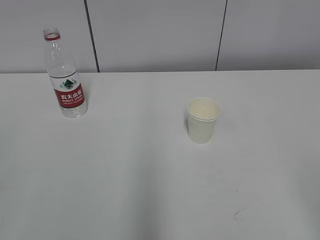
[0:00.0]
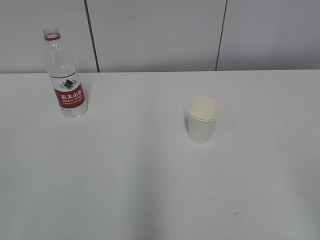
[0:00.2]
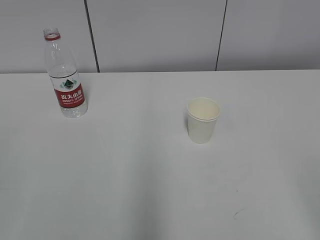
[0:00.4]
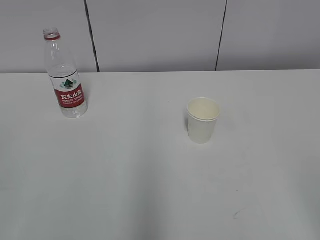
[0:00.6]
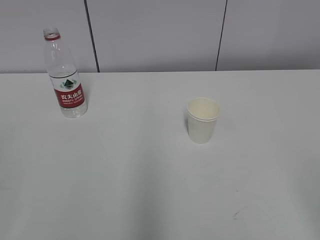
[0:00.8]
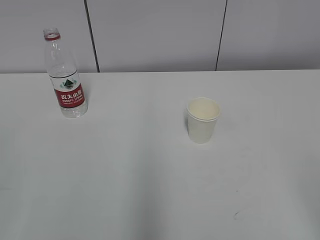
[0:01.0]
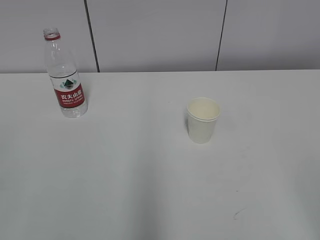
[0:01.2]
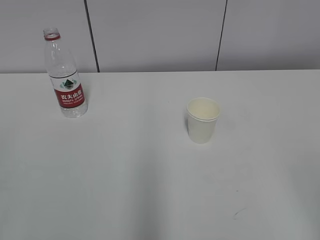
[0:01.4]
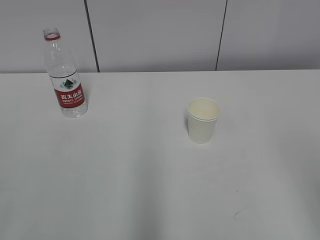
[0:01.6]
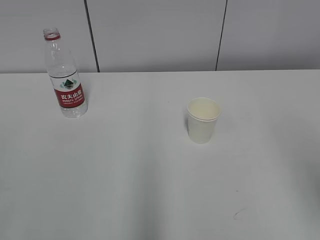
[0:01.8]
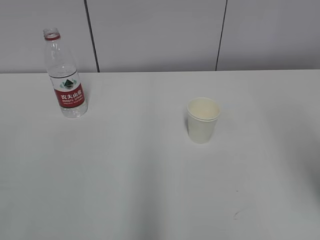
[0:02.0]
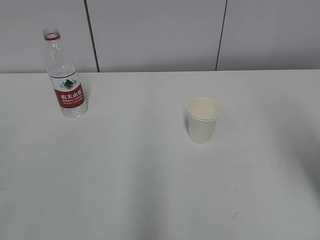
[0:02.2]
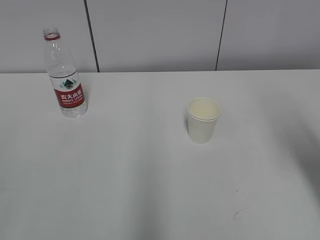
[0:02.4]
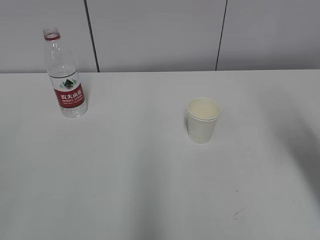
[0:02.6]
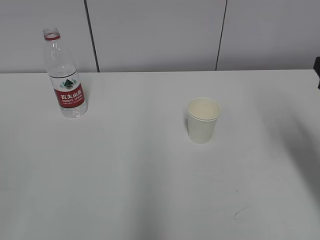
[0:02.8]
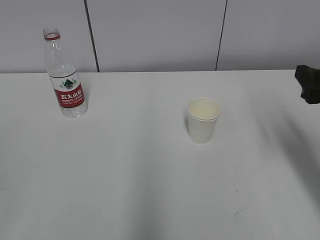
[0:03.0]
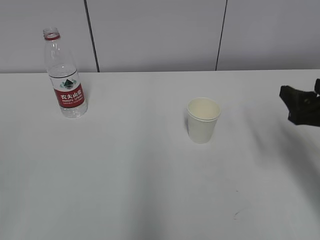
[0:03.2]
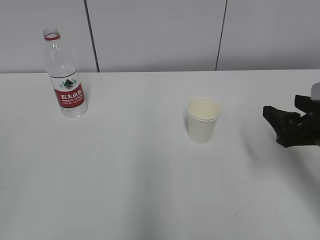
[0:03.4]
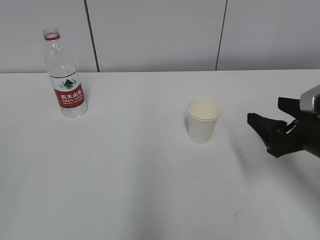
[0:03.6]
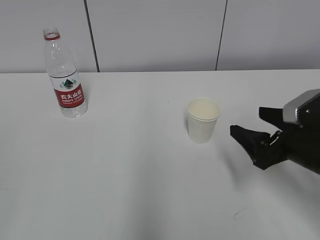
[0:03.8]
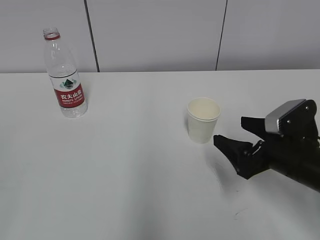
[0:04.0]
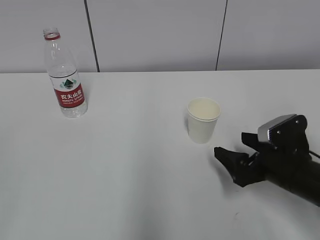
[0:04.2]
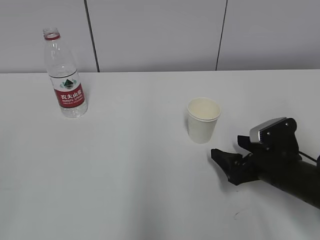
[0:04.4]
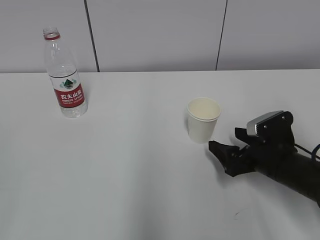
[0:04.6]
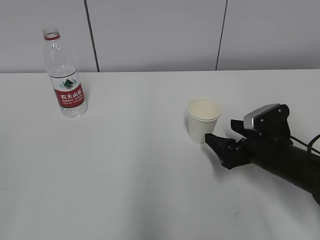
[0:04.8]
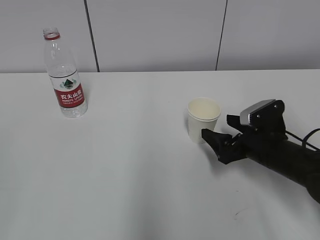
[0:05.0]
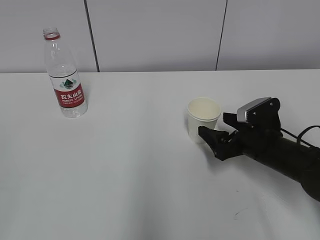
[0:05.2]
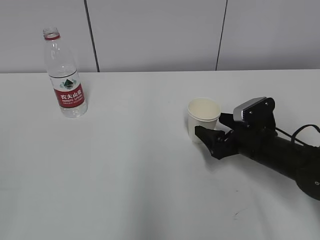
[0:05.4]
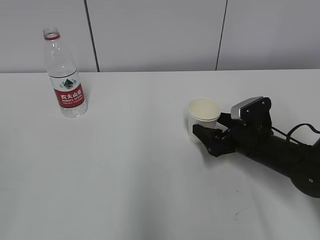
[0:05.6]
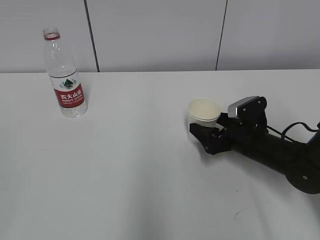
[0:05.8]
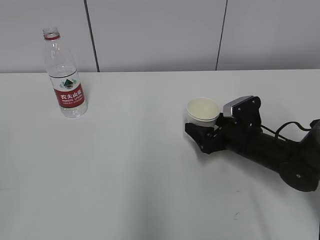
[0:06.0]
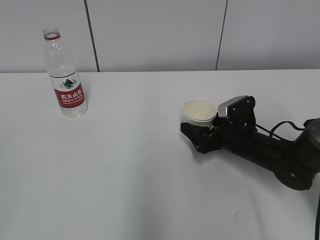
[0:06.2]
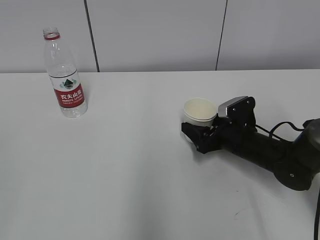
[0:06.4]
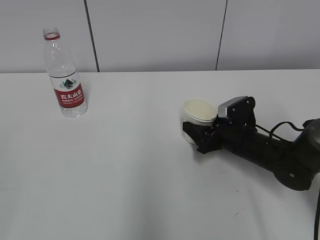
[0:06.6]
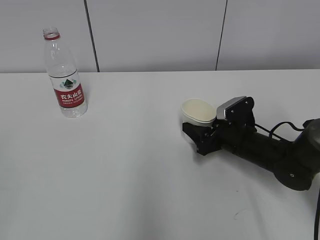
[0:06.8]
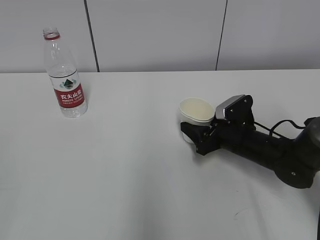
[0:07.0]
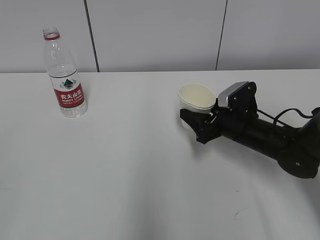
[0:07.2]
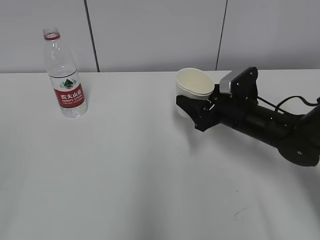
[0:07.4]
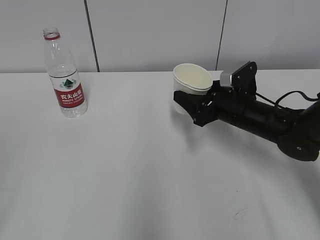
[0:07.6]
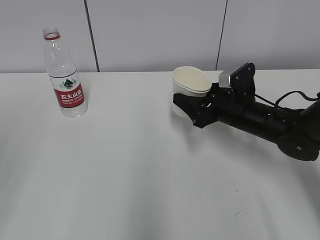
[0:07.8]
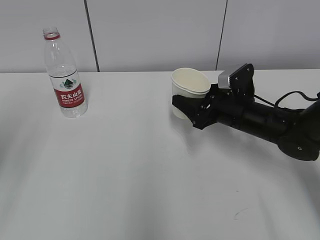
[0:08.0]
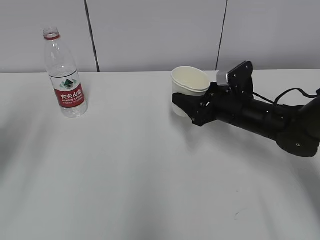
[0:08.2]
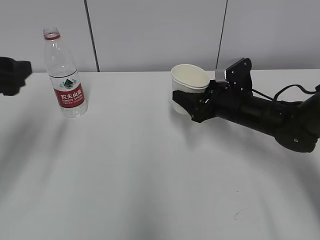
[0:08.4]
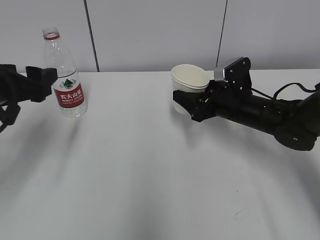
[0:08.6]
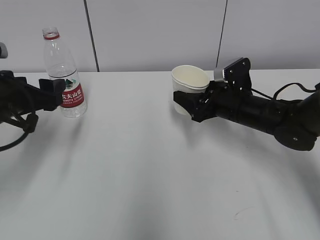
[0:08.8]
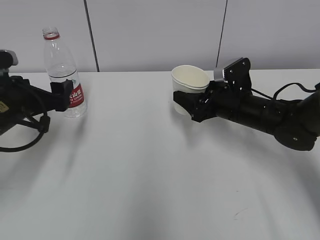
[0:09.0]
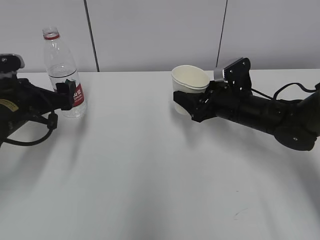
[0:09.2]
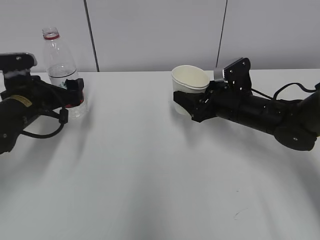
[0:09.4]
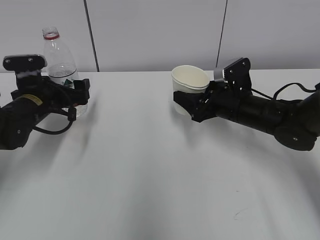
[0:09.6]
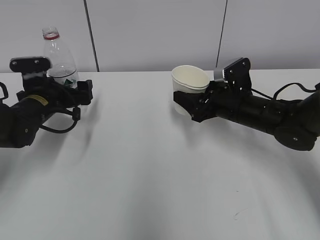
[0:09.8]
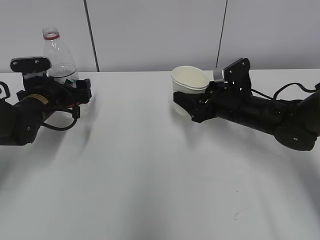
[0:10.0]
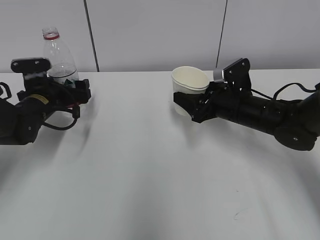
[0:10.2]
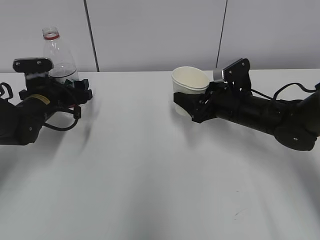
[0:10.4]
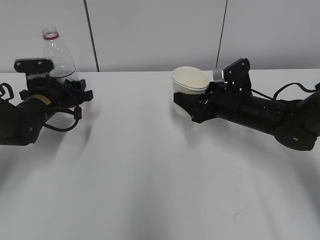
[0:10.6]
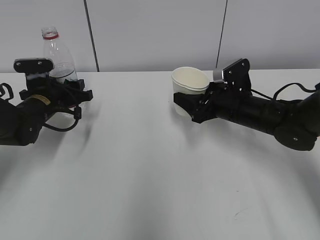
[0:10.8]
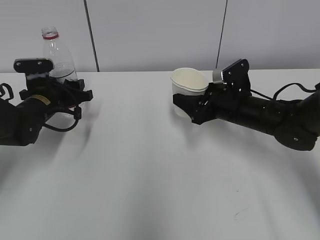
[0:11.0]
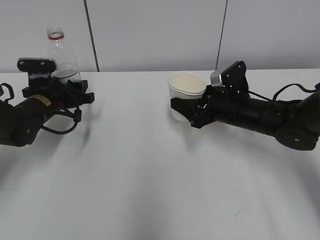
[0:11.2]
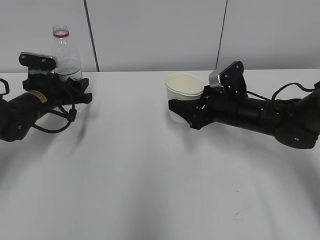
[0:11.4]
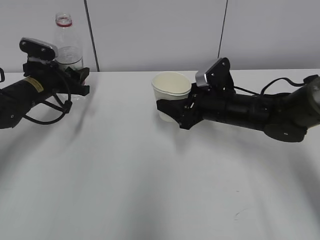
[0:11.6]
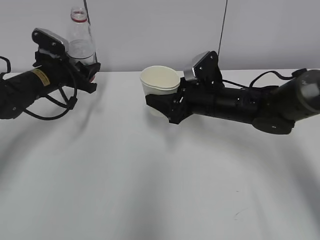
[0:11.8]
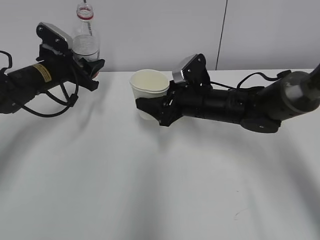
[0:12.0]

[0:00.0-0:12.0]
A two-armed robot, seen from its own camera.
Step, 0:00.0 to 0:05.6: Grab the paper cup with the right hand.
Step, 0:05.8 to 0:09.2: Grab the water bottle with the left hand.
0:01.6 to 0:03.0: The right gripper travels forward by some 25 cm.
0:03.0 to 0:04.4: The right gripper moves downward and to the left, some 15 cm, and opens its fingers.
0:04.4 to 0:06.0: The right gripper heads forward, covering some 10 cm.
0:06.0 to 0:07.6: The right gripper heads upward, covering some 5 cm, and closes its fingers, while the left gripper shifts by about 5 cm.
0:07.6 to 0:09.0: The left gripper travels forward and downward by approximately 30 cm, and opens up.
0:09.0 to 0:10.4: The left gripper heads forward and downward, covering roughly 10 cm.
0:10.4 to 0:12.0: The right gripper moves to the left, some 5 cm, while the left gripper changes place by about 5 cm, and closes.

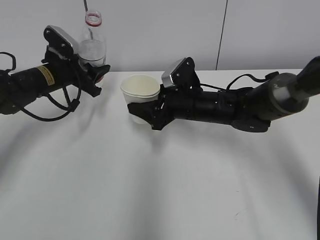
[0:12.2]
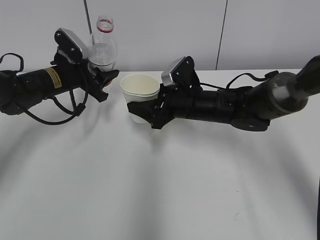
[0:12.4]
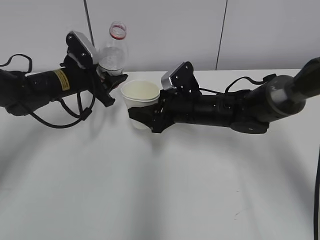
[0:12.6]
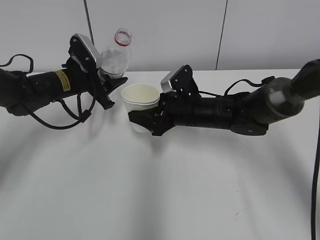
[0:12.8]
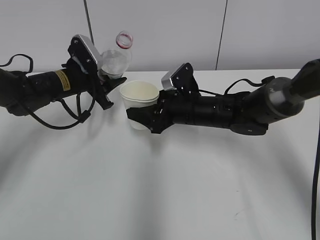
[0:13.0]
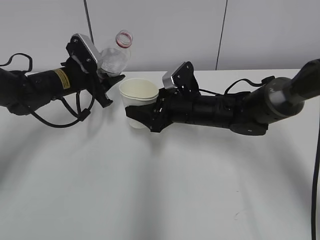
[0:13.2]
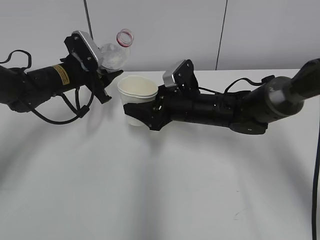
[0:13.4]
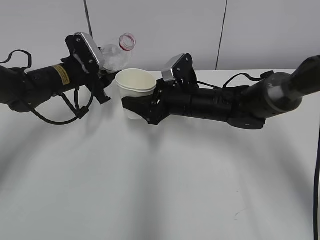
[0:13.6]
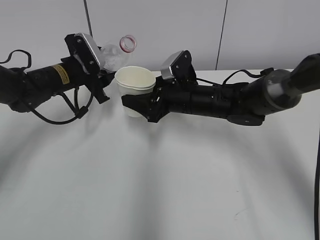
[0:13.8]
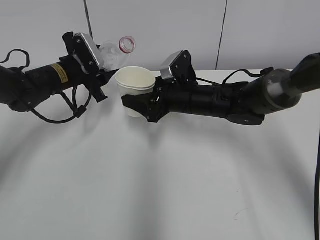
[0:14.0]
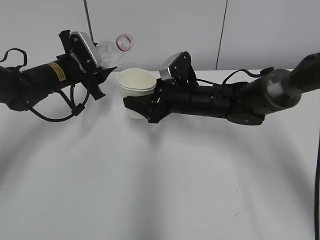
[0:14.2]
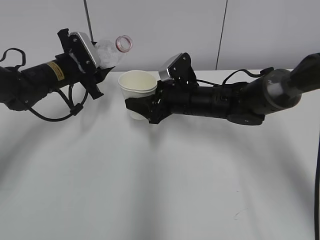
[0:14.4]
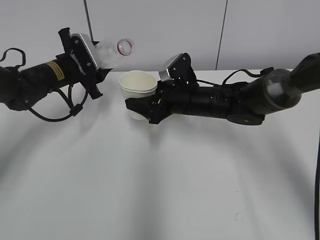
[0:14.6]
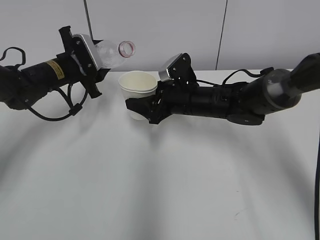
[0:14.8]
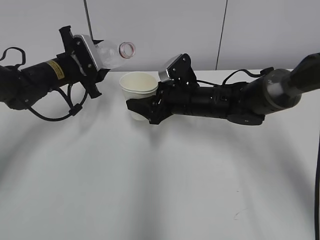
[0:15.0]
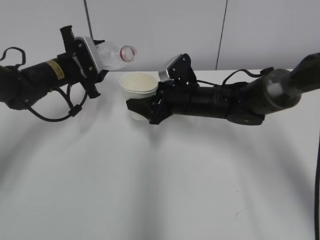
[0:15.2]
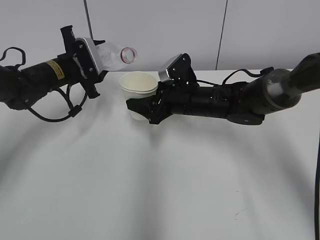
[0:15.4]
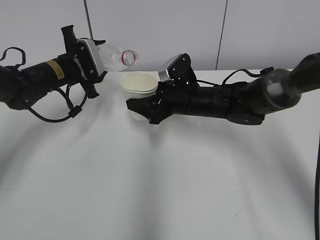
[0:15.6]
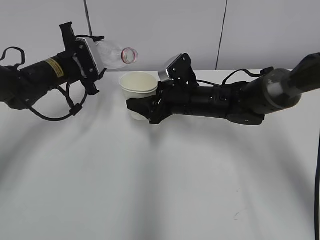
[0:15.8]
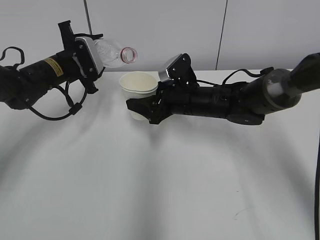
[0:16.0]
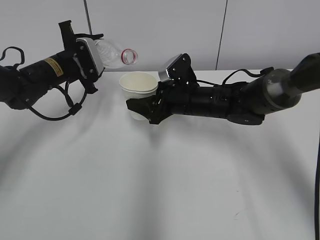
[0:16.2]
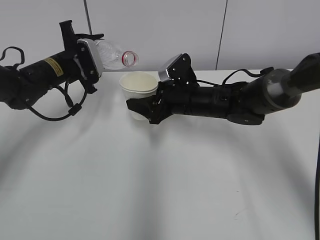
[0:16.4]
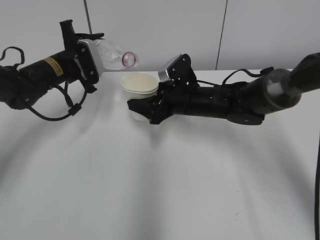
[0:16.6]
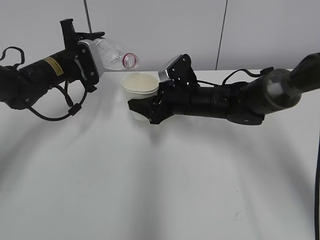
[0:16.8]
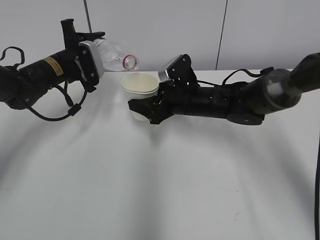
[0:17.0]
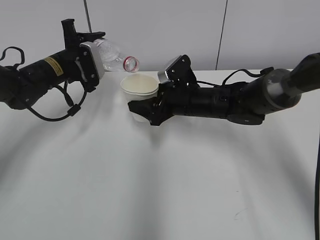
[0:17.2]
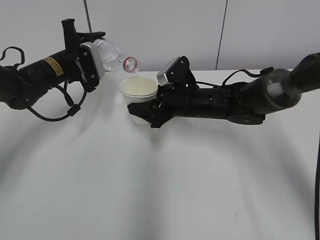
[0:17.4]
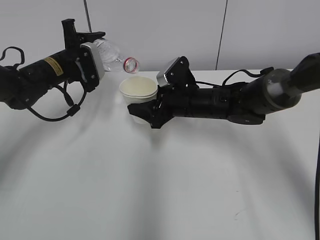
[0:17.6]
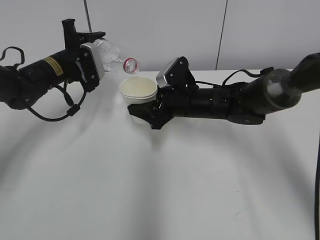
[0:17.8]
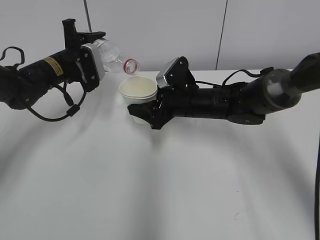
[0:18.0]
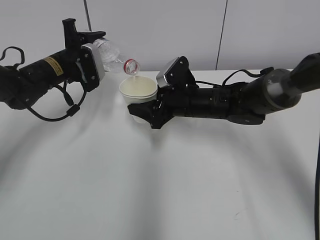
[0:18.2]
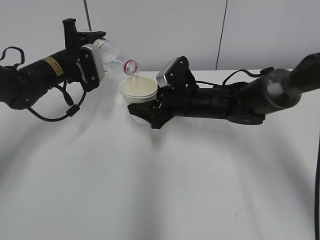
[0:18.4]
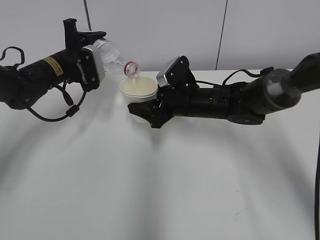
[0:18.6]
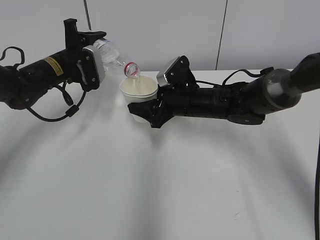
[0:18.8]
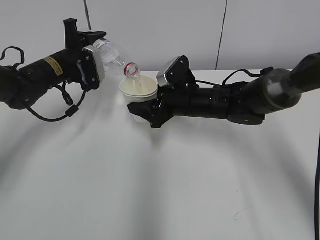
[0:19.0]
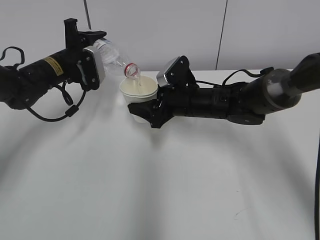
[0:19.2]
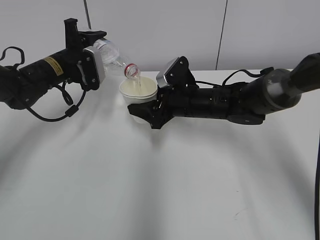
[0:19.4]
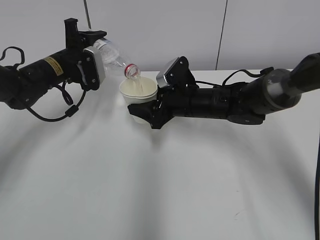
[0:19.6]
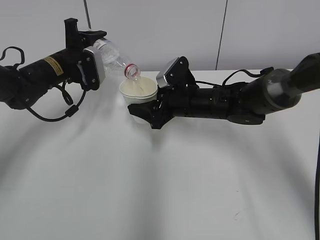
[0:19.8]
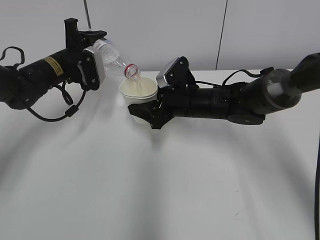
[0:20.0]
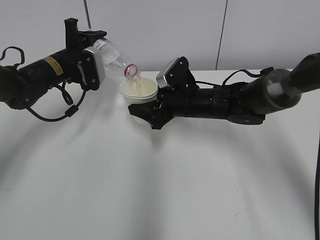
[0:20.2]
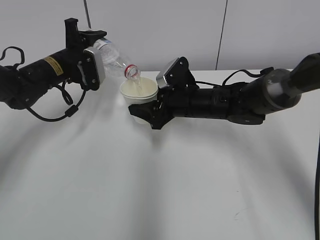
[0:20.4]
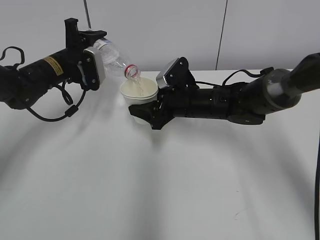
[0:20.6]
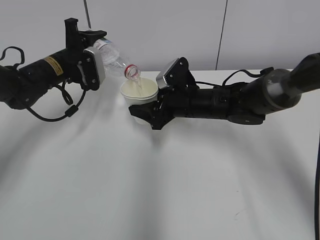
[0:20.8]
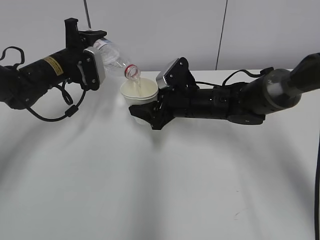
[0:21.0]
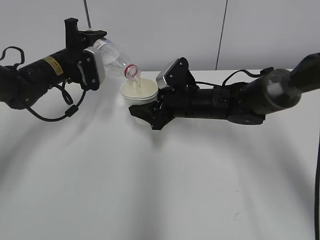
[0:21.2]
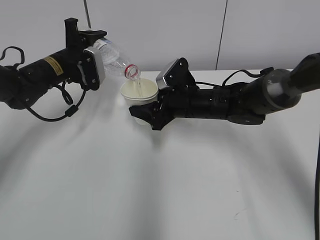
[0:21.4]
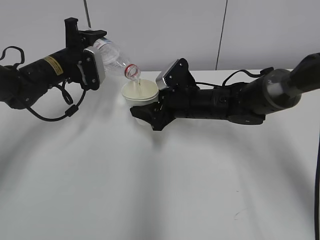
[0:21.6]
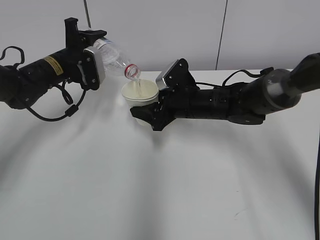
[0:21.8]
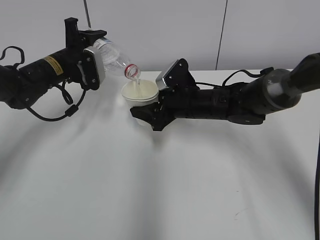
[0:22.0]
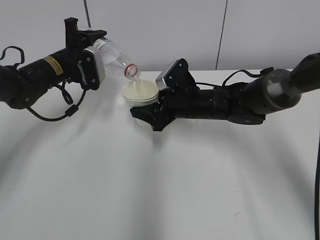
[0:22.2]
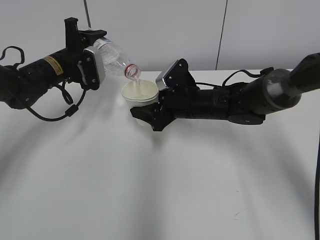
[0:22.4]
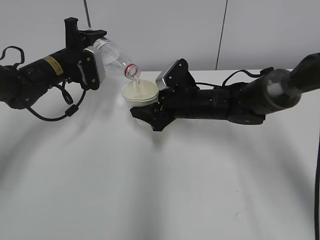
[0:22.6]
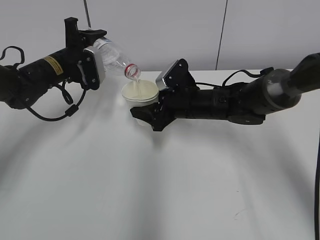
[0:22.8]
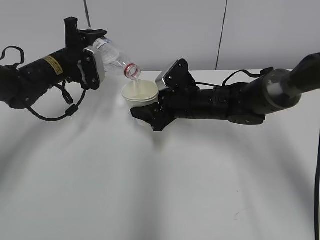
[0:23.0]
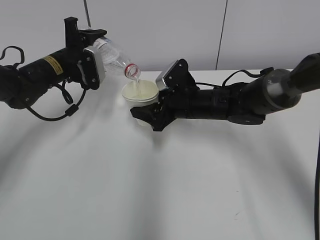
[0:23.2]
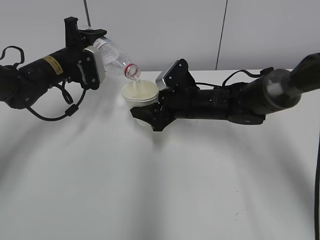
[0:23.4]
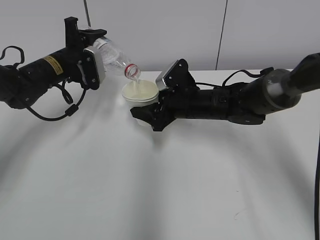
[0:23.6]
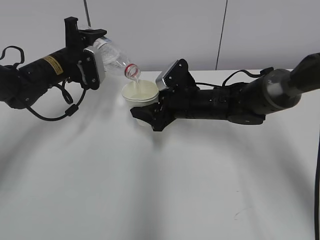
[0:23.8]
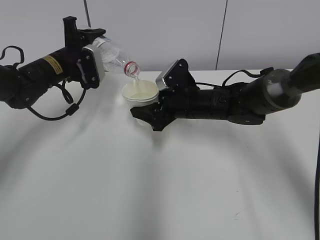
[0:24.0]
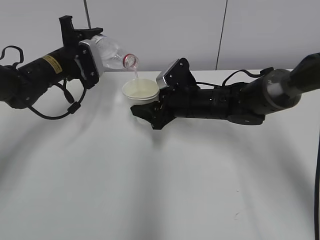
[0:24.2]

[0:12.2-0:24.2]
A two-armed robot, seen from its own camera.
Step, 0:12.2 to 0:15.2: Lift the paper cup with the right hand.
Step, 0:15.4 to 0:20.2: Fill water with the right hand.
Step, 0:15.4 to 0:20.2: Pour water with the left hand.
Step, 0:21.2 to 0:24.2: Place the water bottle with the left hand.
0:13.8 to 0:15.2: There are only small adjustments of the grippers.
0:15.2 to 0:18.2: The grippers move only a little.
0:18.2 to 0:19.8: The two grippers keep their place.
0:19.8 to 0:22.6: The two grippers keep their place.
0:22.6 to 0:24.2: There are only small adjustments of the grippers.
